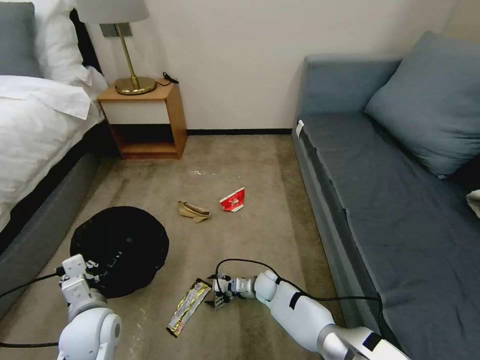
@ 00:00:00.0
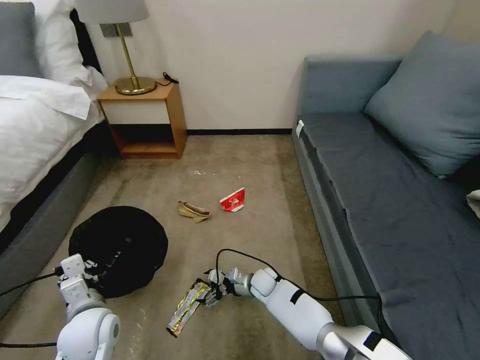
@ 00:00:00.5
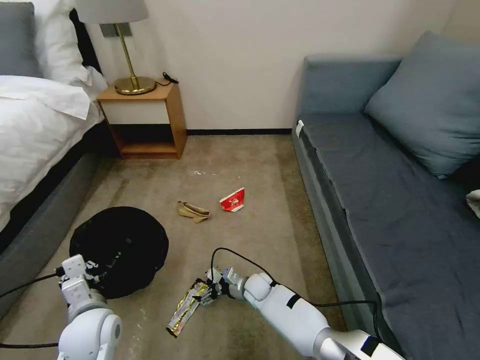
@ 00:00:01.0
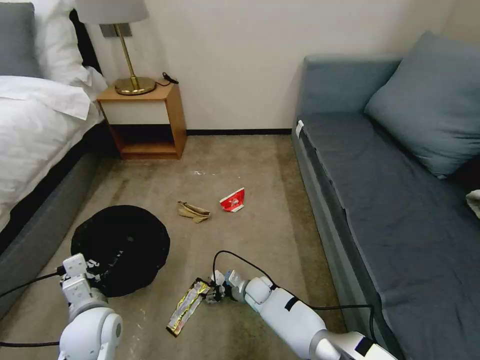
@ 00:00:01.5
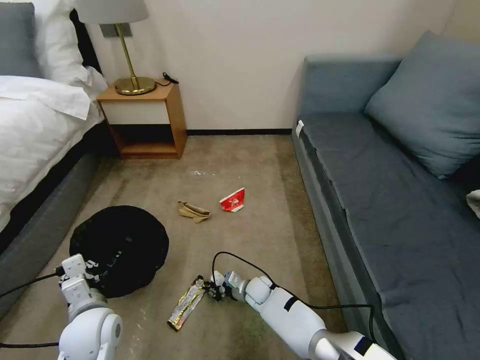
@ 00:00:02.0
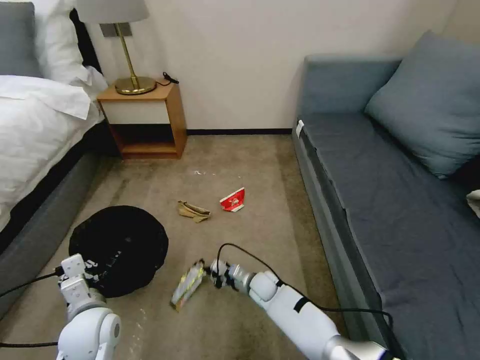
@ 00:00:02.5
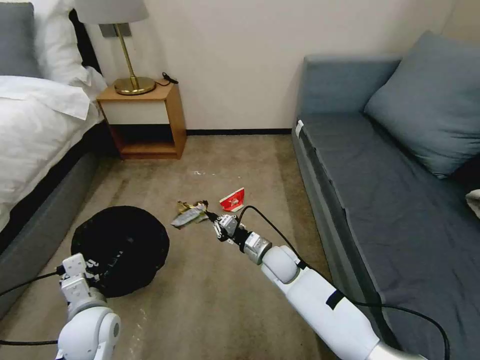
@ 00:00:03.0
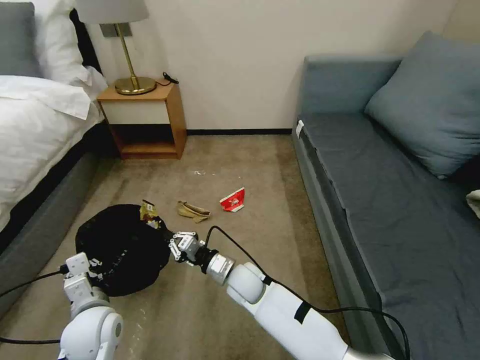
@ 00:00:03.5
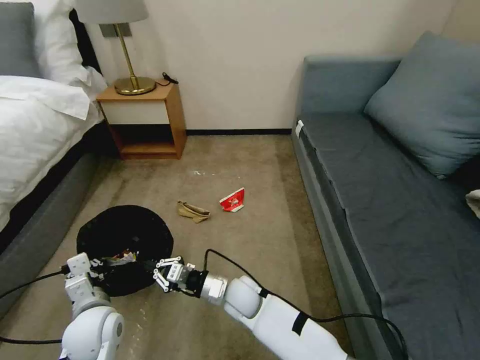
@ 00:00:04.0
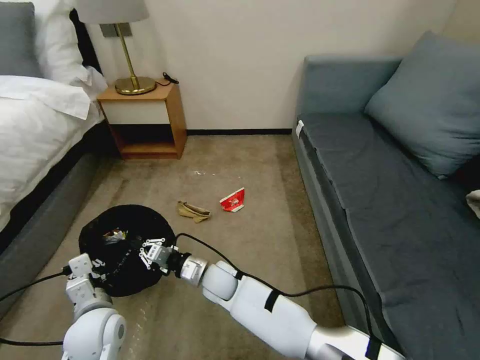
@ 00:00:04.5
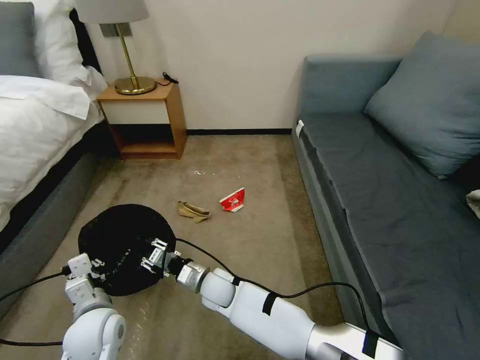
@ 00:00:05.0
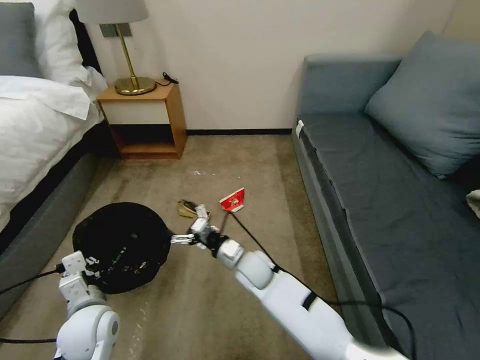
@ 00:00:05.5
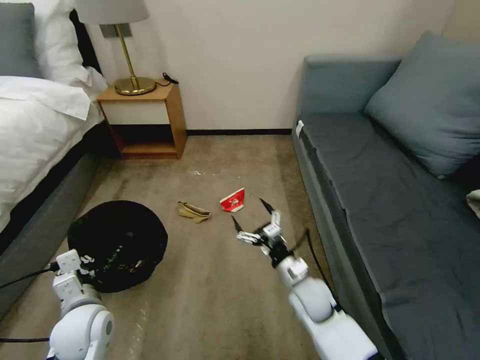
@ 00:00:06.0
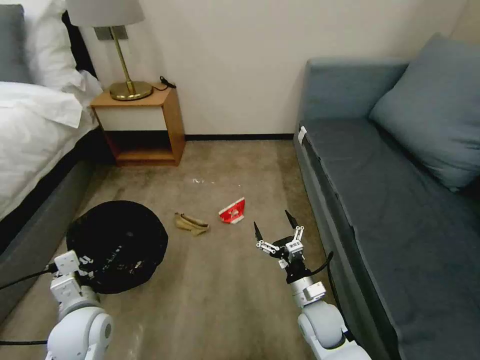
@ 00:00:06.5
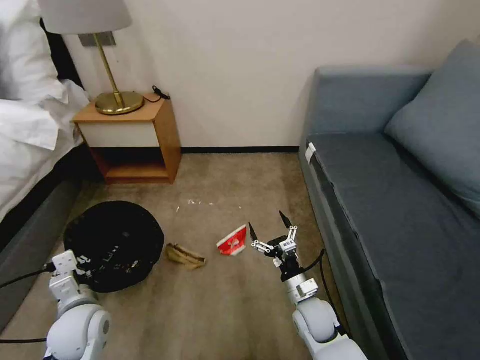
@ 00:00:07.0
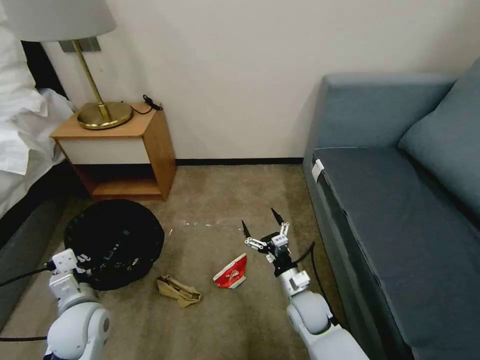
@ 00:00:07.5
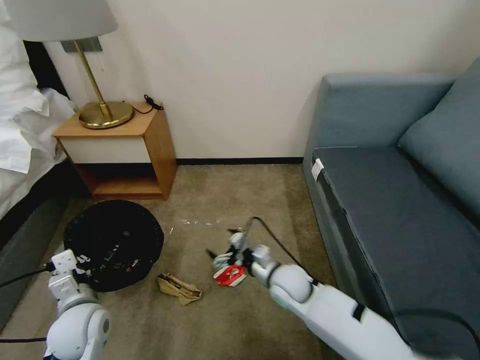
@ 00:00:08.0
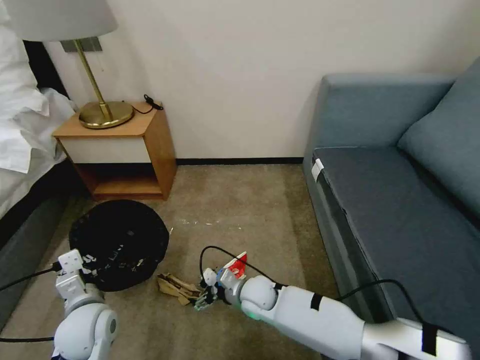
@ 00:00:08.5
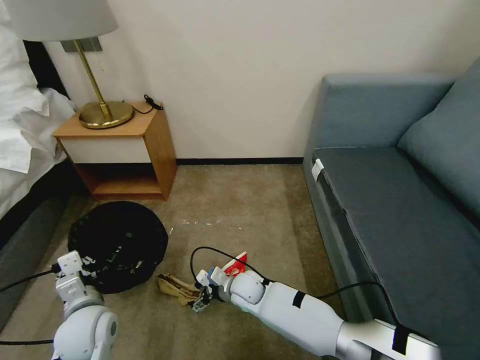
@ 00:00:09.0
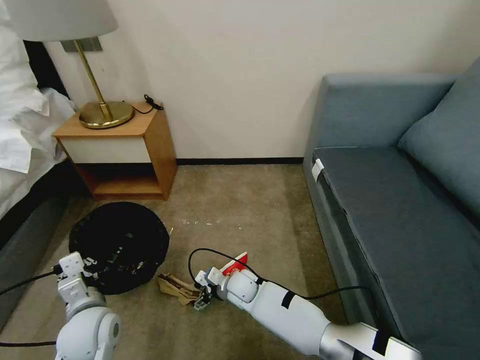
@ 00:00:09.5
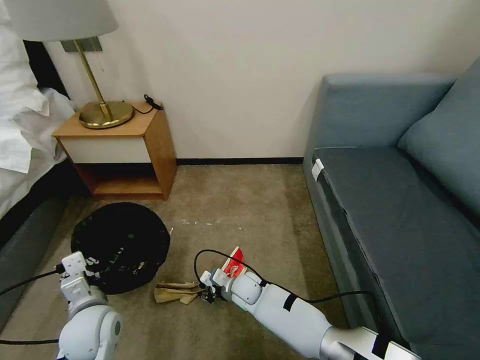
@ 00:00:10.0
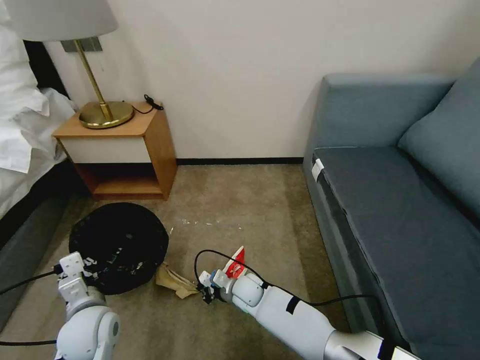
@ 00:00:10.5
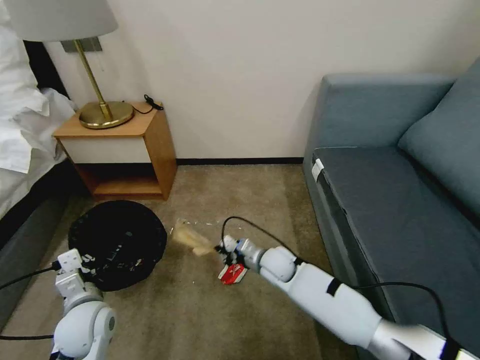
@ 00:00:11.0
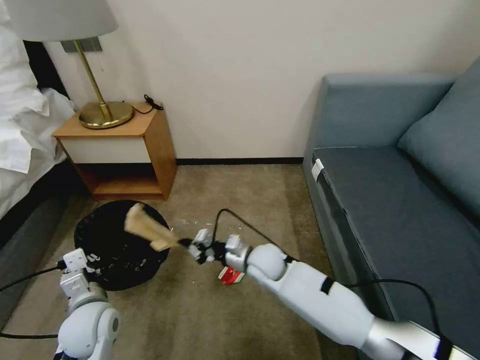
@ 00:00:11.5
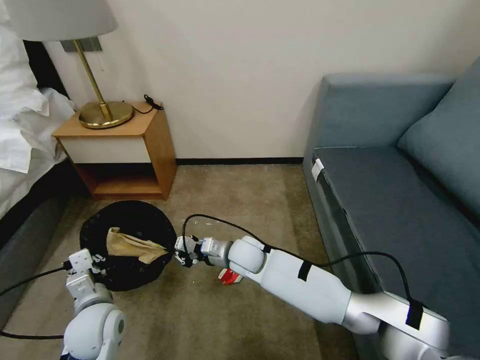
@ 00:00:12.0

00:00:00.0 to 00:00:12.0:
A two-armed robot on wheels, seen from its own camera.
Task of the whole recording: Pick up the trash bin, then pick up the garbage on the floor and place it into the trash bin.
00:00:00.0 to 00:00:02.0: The right gripper closes.
00:00:02.0 to 00:00:04.0: The right gripper travels upward, to the left and backward by roughly 15 cm.
00:00:04.0 to 00:00:06.0: The right gripper heads to the right, covering some 15 cm, and opens.
00:00:06.0 to 00:00:08.0: The right gripper is displaced to the left by some 5 cm.
00:00:08.0 to 00:00:10.0: The right gripper goes about 15 cm downward and to the left, and closes up.
00:00:10.0 to 00:00:12.0: The right gripper shifts roughly 15 cm upward, and closes up.

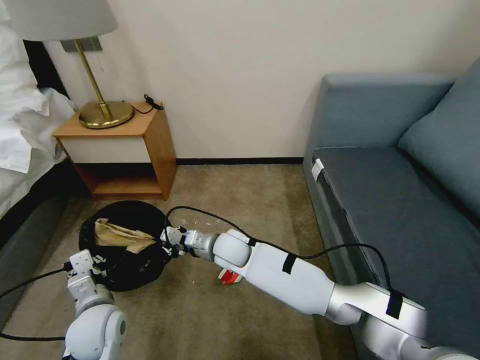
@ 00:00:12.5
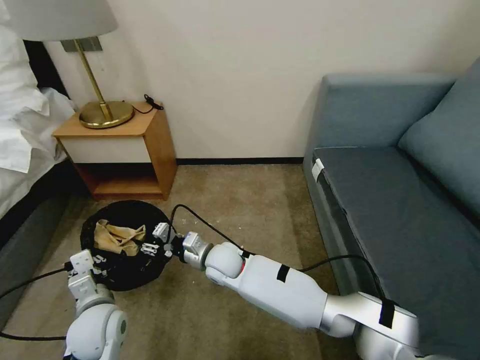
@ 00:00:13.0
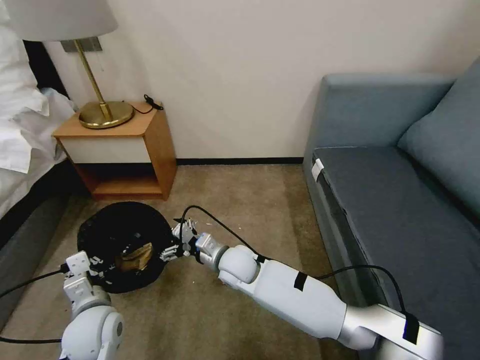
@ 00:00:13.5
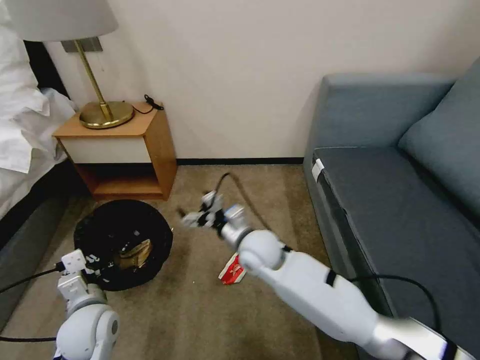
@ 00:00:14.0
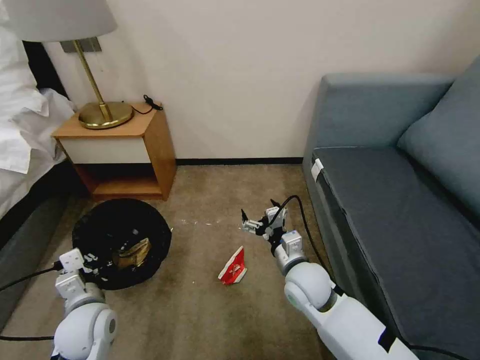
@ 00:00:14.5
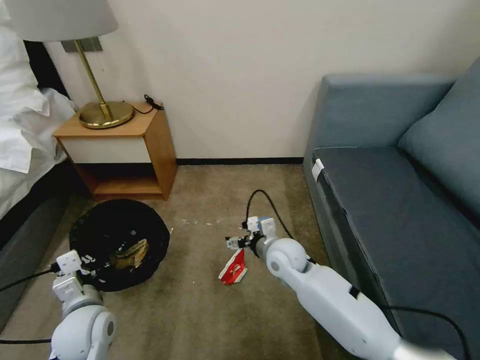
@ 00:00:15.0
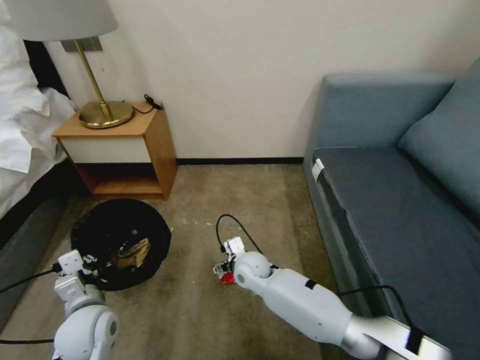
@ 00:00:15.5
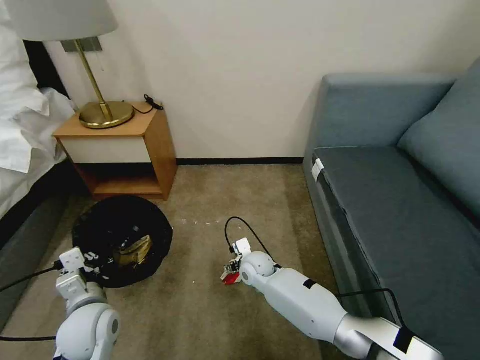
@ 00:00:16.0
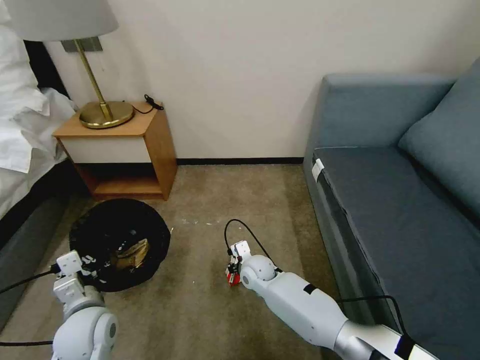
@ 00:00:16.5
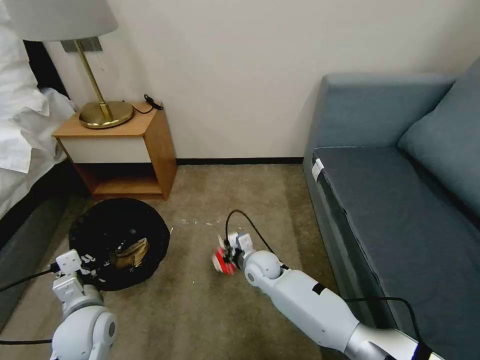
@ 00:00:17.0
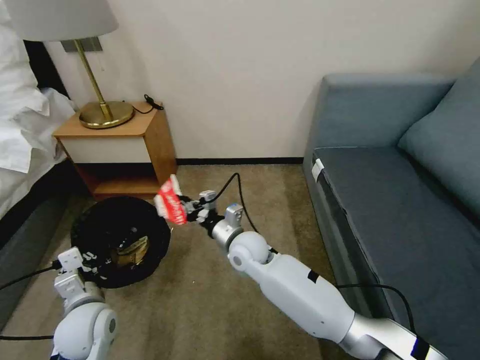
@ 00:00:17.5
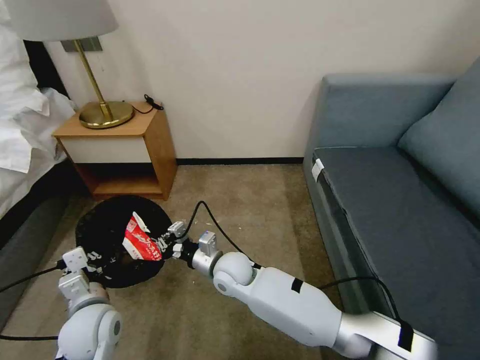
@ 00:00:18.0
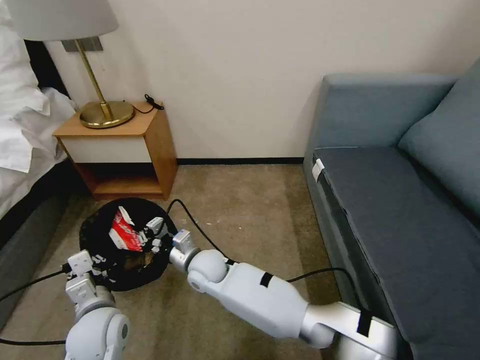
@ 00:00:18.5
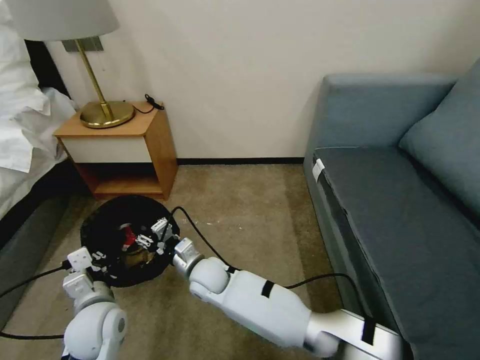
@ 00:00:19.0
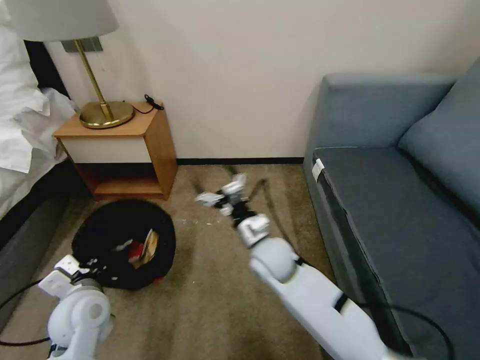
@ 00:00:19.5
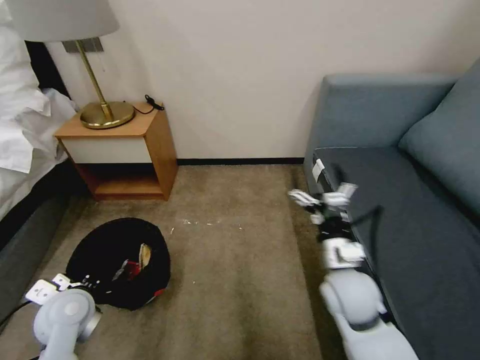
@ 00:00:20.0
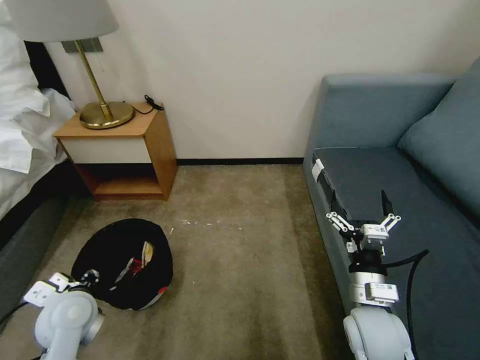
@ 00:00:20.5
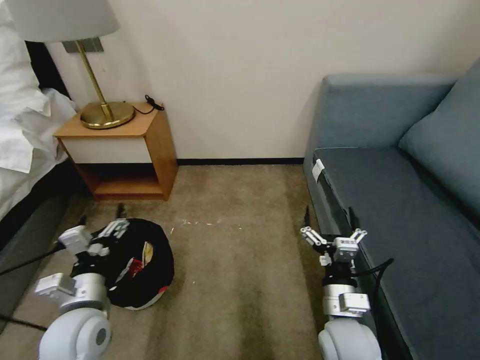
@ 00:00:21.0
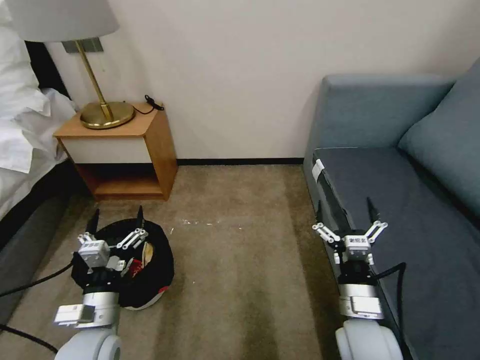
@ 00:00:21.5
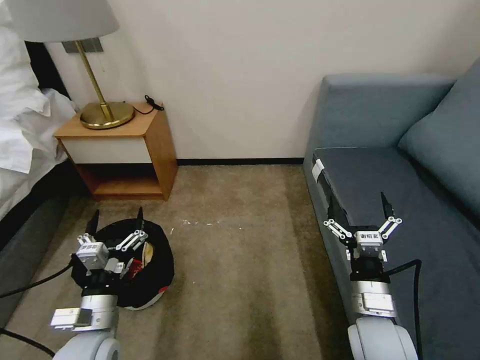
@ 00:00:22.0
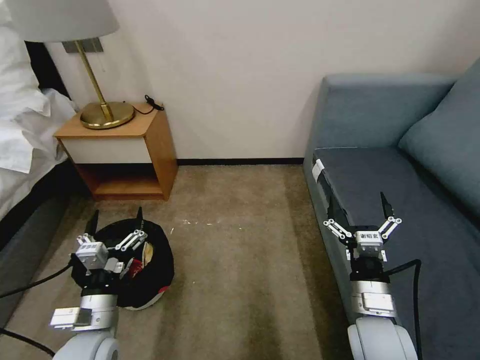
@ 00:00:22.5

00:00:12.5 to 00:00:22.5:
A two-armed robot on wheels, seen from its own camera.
Task of the whole recording: Pick up the trash bin, then pick up the garbage on the floor and place it into the trash bin.
00:00:12.5 to 00:00:14.5: The right gripper goes roughly 20 cm to the right and backward, and opens up.
00:00:14.5 to 00:00:16.5: The right gripper is displaced downward, to the left and forward by roughly 20 cm, and closes up.
00:00:16.5 to 00:00:18.5: The right gripper moves to the left and upward, some 15 cm, and closes up.
00:00:18.5 to 00:00:20.5: The right gripper goes roughly 35 cm to the right and backward, and opens up, while the left gripper heads to the left, covering some 5 cm, and opens.
00:00:20.5 to 00:00:22.5: The left gripper is displaced backward and to the right by some 10 cm, and opens up.
